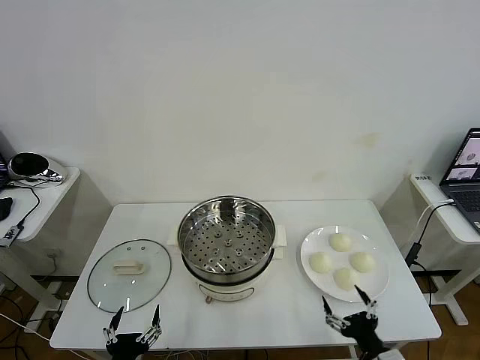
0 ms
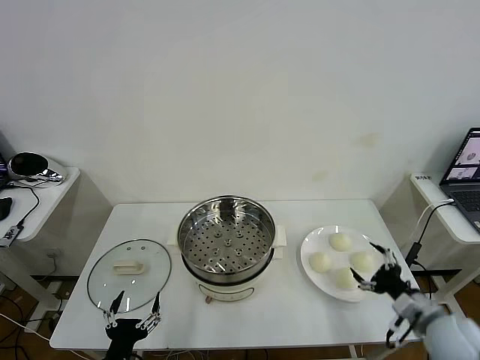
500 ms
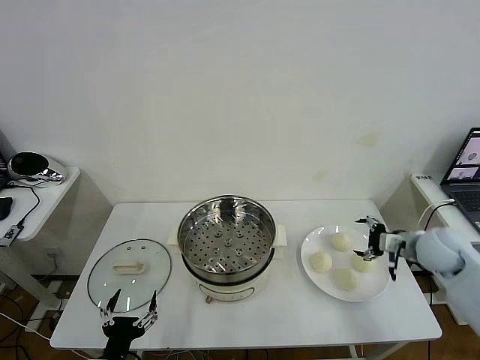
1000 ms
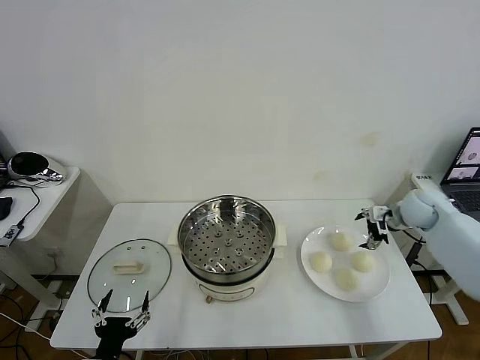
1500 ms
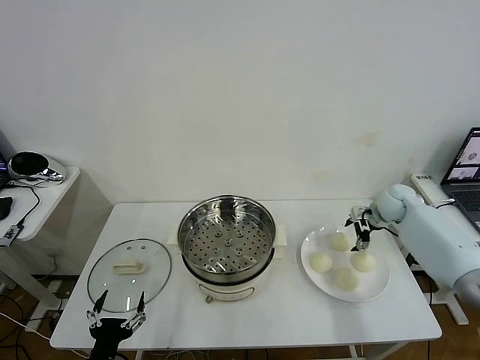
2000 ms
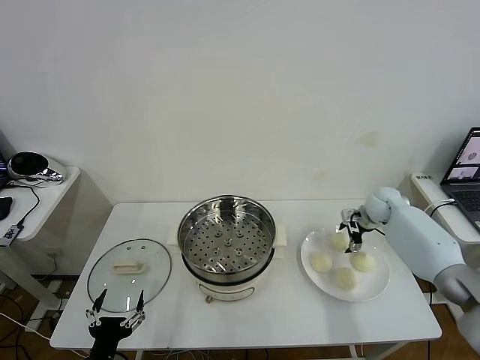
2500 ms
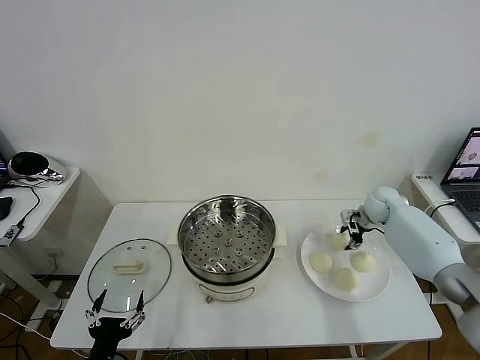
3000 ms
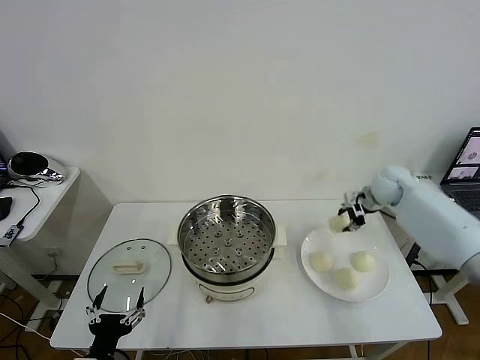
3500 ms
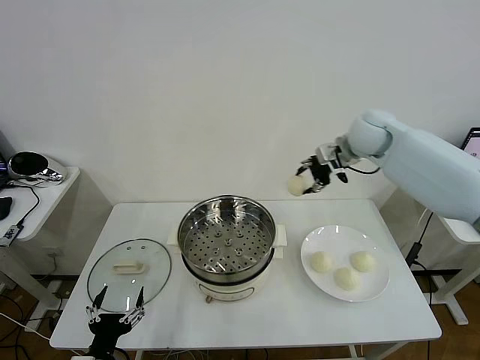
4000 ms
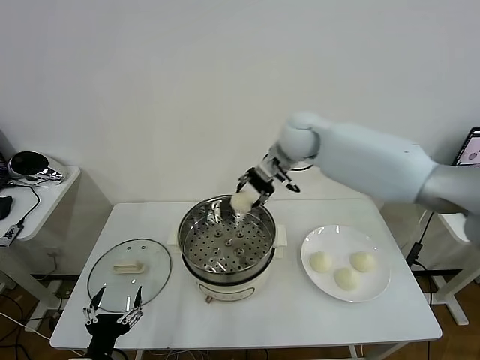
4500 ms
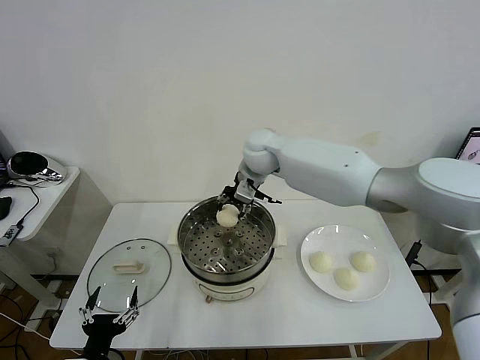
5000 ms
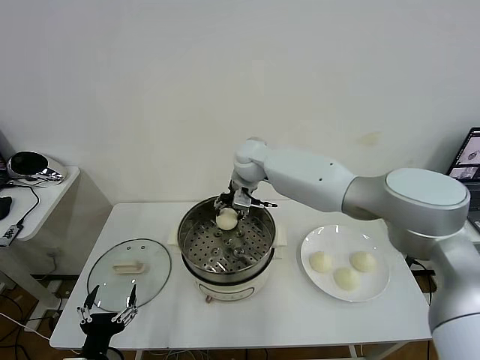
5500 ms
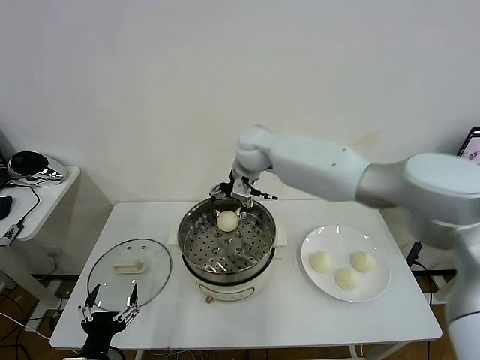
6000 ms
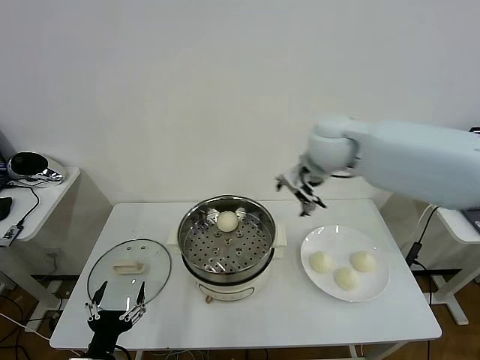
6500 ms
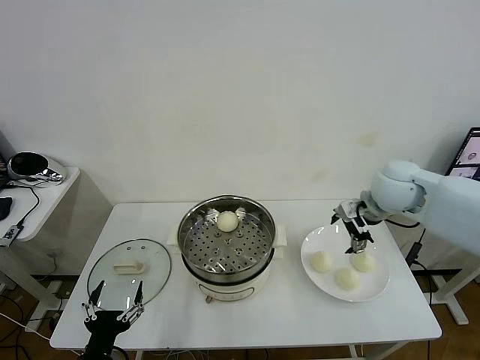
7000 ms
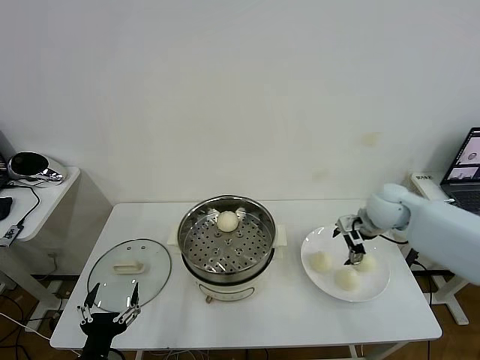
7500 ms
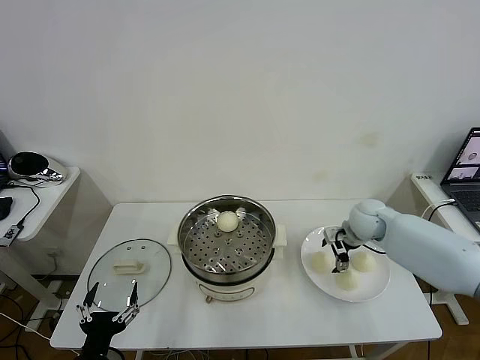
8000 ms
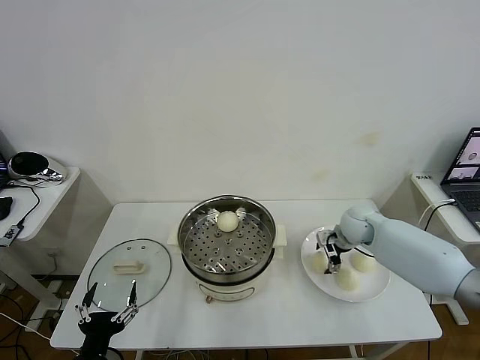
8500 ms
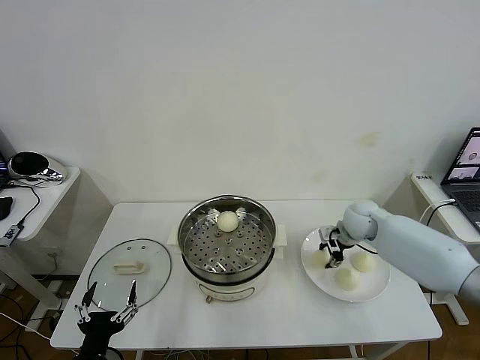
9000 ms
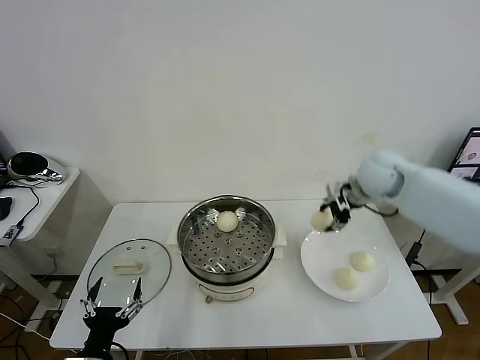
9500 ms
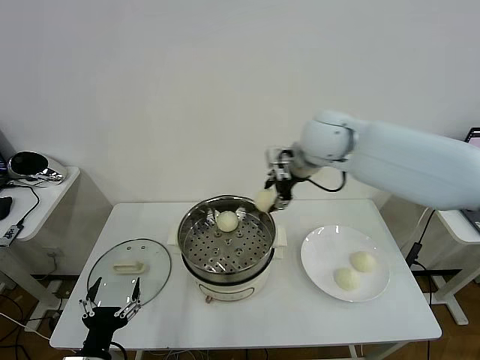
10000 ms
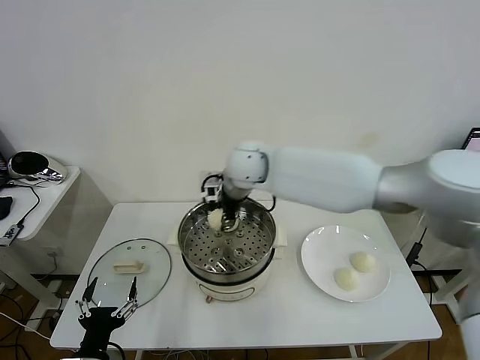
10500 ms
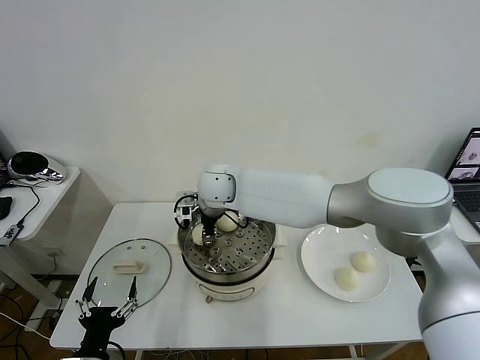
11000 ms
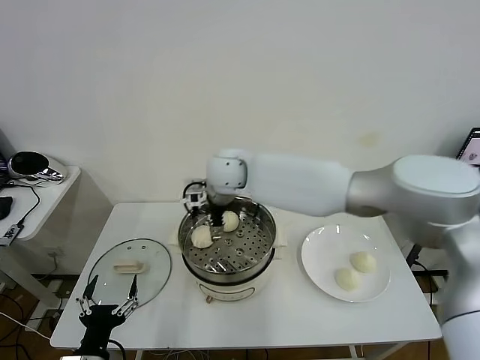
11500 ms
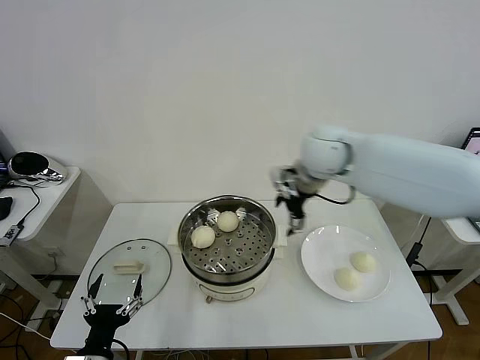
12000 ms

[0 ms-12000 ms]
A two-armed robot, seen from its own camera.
Task of the whole recording: take steamed baozi put them in steamer then cover it.
Step, 0 ms to 2500 ms: Grasp the baozi in the plate with right gripper.
Step, 3500 ms to 5500 ms: Place the baozi on the steamer with right gripper.
Step, 6000 ms to 8500 ms: Grasp the baozi in the plate with right gripper.
Step, 9000 ms to 11000 ms: Place the baozi on the steamer with right gripper.
2000 ms to 4000 ms: The right gripper moves upward and to the left, some 25 cm, and closes up.
4000 ms to 6000 ms: The right gripper shifts some 25 cm to the left, and opens.
6000 ms to 8000 ms: The right gripper is displaced to the right and downward by roughly 30 cm.
8000 ms to 10000 ms: The right gripper moves upward and to the left, about 30 cm, and closes its fingers.
10000 ms to 12000 ms: The right gripper travels to the left and back again, roughly 20 cm each way, and opens up.

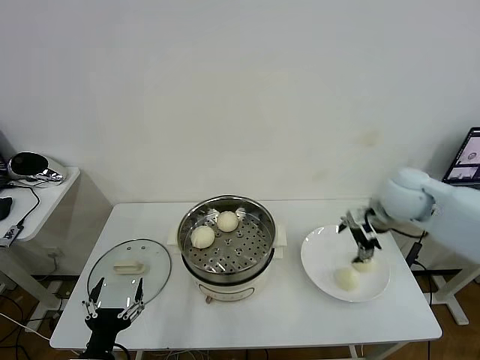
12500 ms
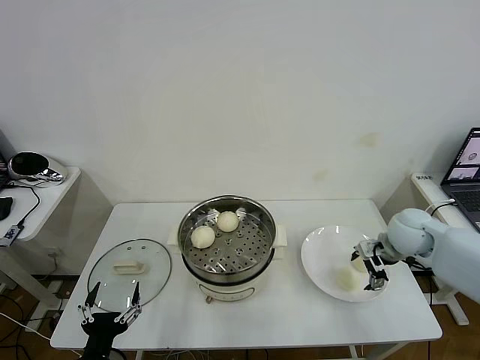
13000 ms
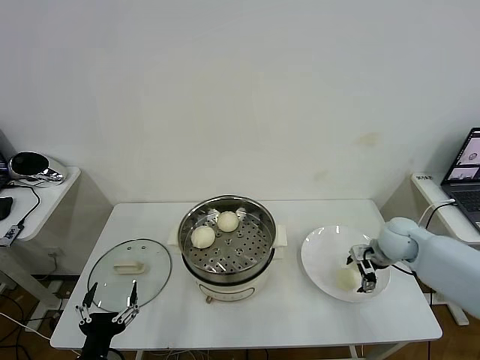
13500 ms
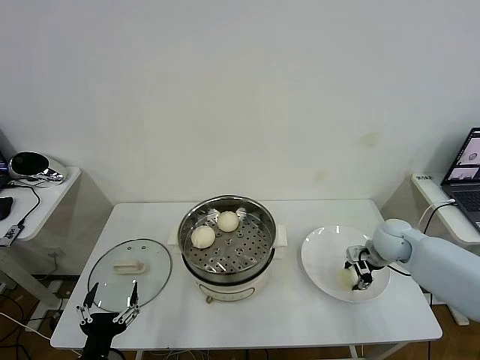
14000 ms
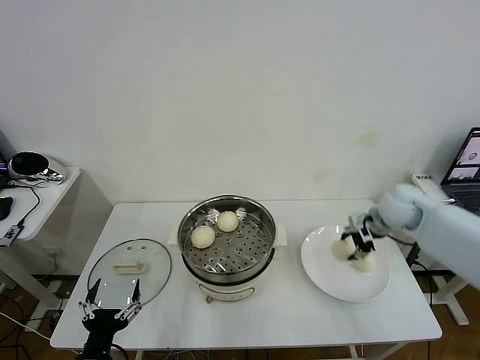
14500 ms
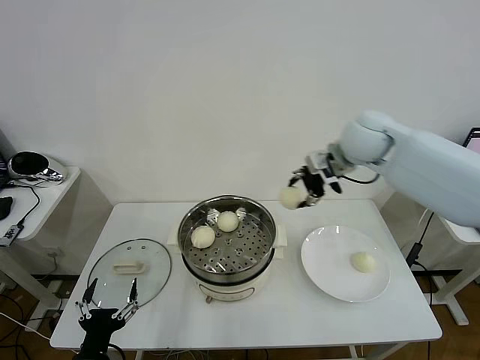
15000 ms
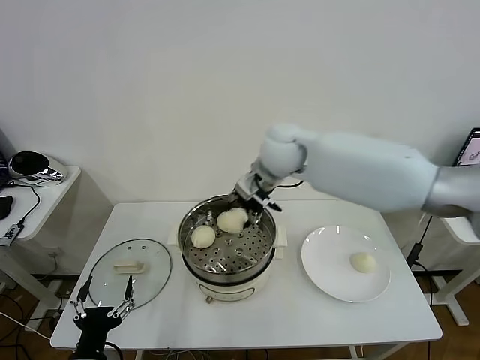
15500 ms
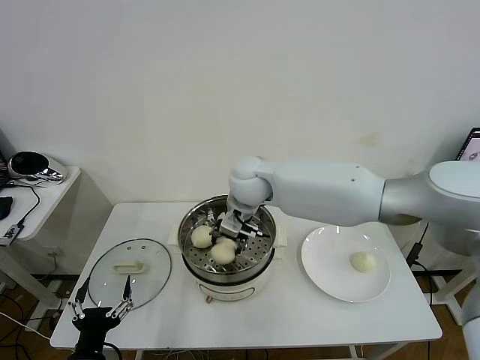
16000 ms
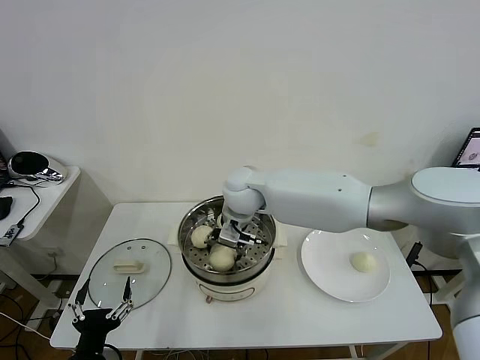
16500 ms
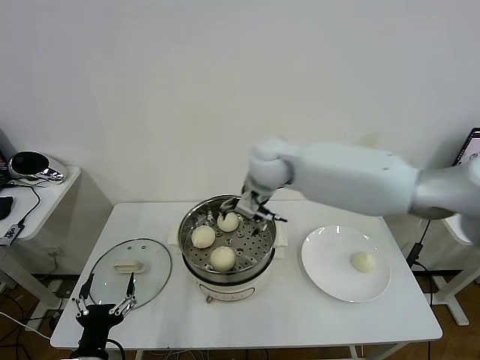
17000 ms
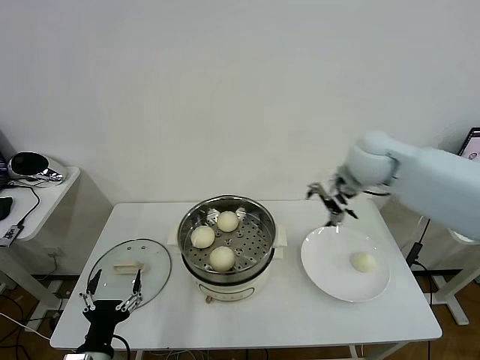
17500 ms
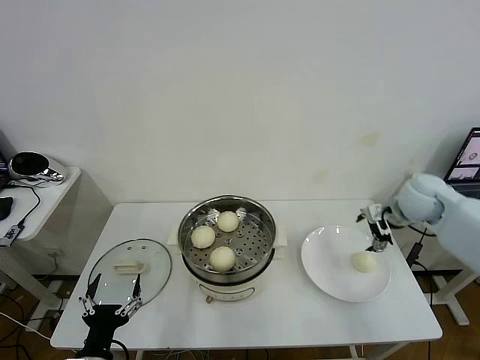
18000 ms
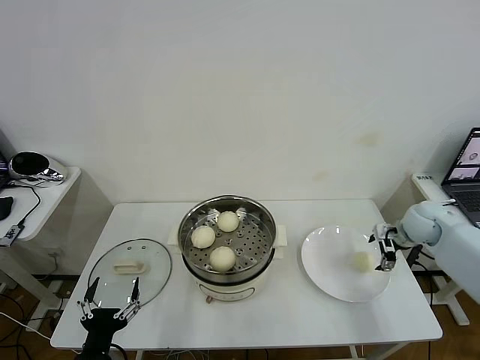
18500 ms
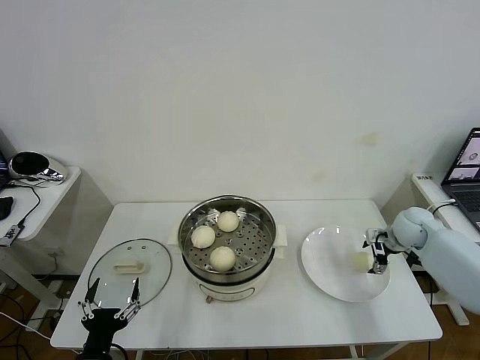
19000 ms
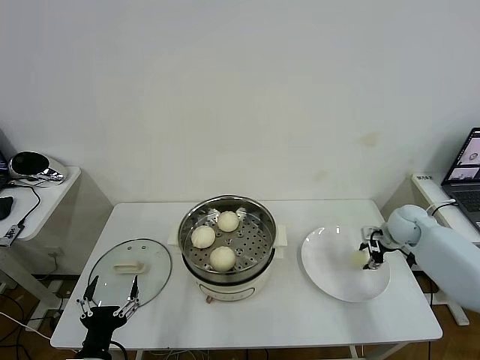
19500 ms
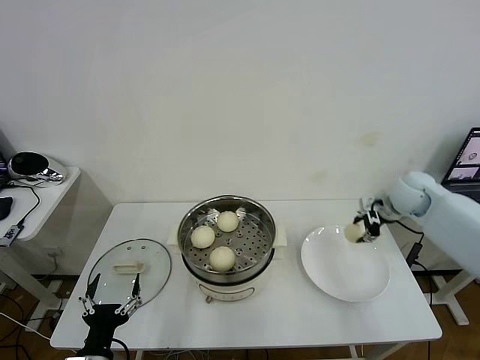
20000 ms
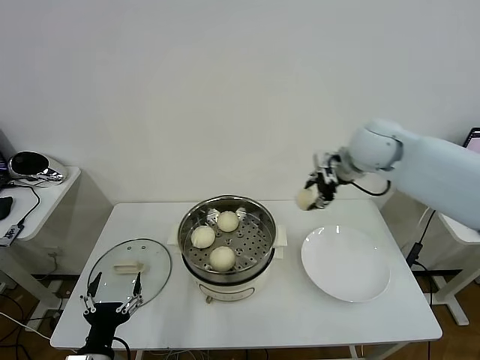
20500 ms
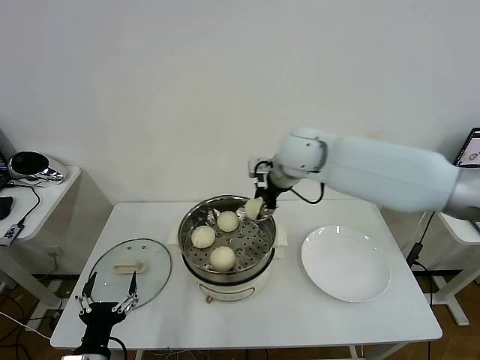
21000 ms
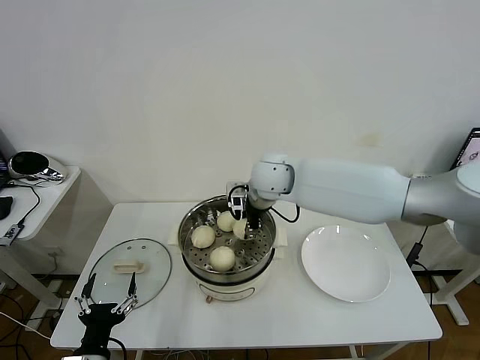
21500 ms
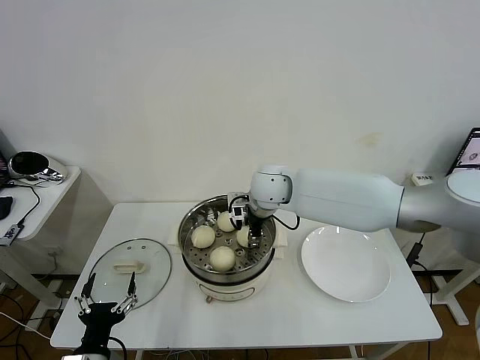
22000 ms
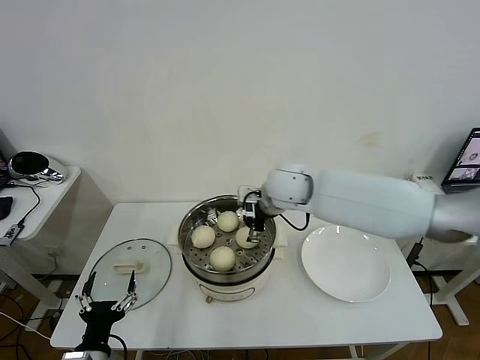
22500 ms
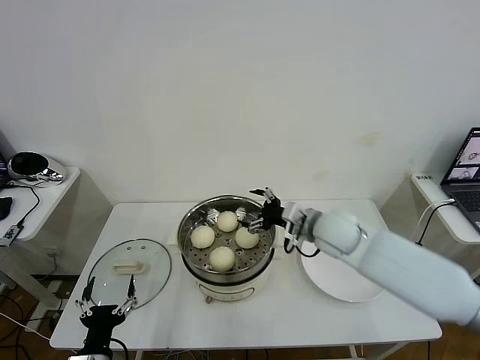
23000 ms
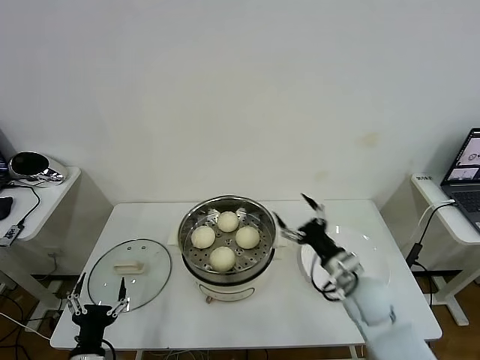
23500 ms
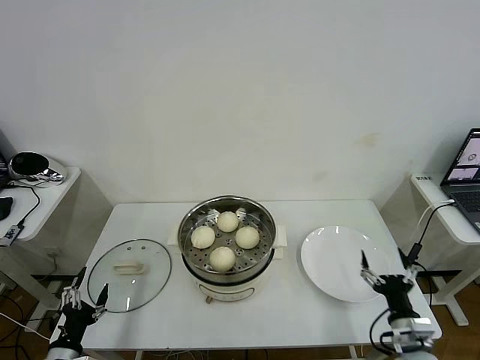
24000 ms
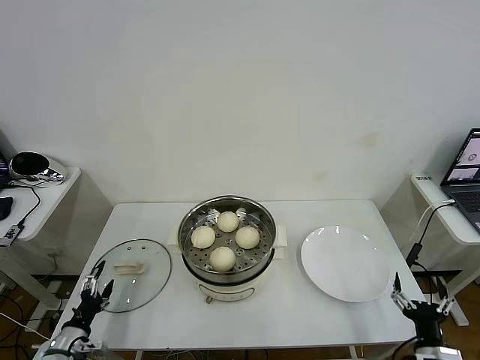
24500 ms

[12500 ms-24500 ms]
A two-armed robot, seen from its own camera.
Task of the whole recording: take steamed baozi put them in steamer then cover it.
Step, 12500 ms to 14000 ms: Grasp the baozi in the plate with right gripper.
Step, 14500 ms to 16500 ms: Place the baozi on the steamer with right gripper.
Step, 17000 ms to 19000 ms: Grasp the baozi in the plate with right gripper.
Step, 20000 ms to 22000 ms: Place the baozi on the steamer with right gripper.
12500 ms to 14500 ms: The right gripper travels downward by approximately 5 cm, and closes its fingers.
14500 ms to 16500 ms: The right gripper goes about 35 cm to the left.
16500 ms to 18500 ms: The right gripper is displaced to the right by roughly 40 cm, and opens its fingers.
18500 ms to 20500 ms: The right gripper travels upward and to the left by about 25 cm, and closes its fingers.
20500 ms to 22500 ms: The right gripper is displaced to the left and downward by roughly 20 cm, and opens up.
22500 ms to 24500 ms: The left gripper goes some 15 cm to the left, downward and forward. The right gripper travels backward, to the right and downward by about 50 cm.

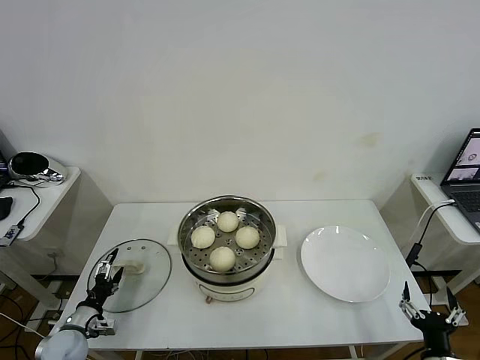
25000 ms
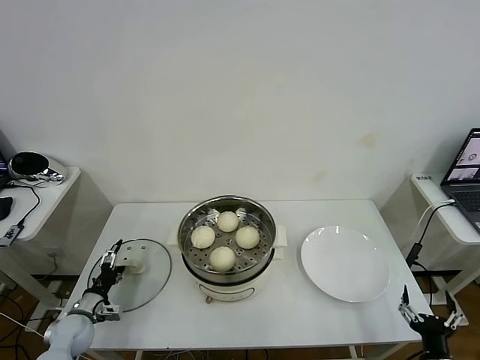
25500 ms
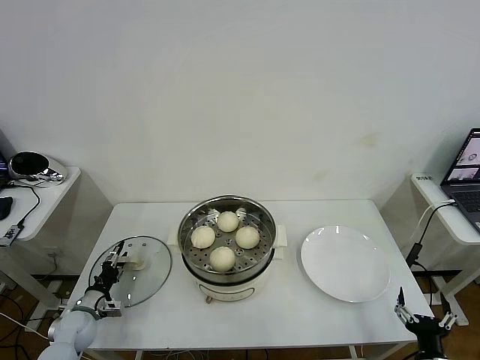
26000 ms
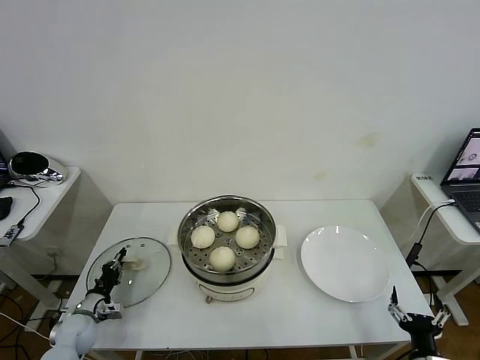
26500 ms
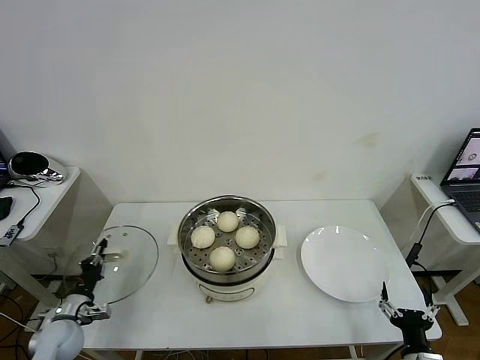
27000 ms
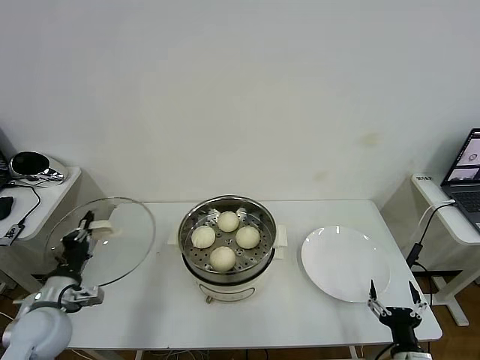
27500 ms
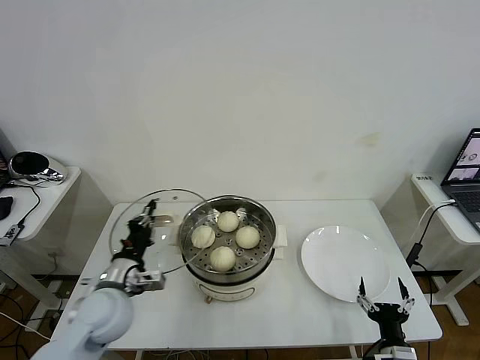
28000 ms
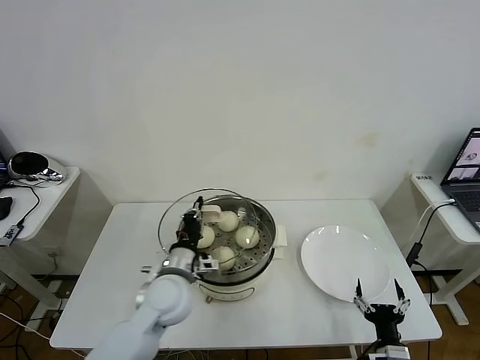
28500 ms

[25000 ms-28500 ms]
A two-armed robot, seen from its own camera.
Task of the whole recording: take steamed baozi put them in steamer then cover it.
25000 ms to 27000 ms: The left gripper closes.
27000 ms to 28500 ms: The right gripper changes place by roughly 5 cm, while the left gripper is displaced to the right and upward by about 30 cm.
